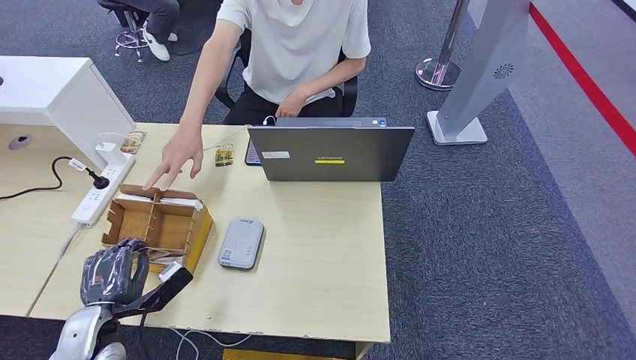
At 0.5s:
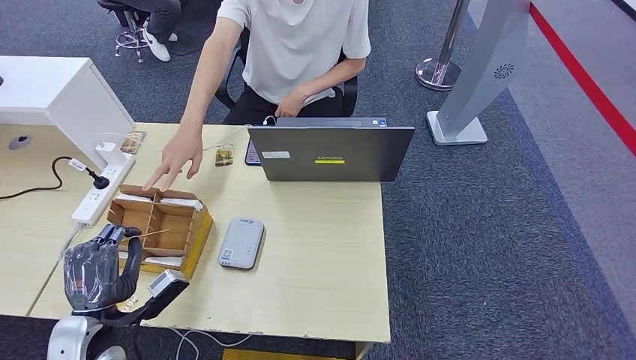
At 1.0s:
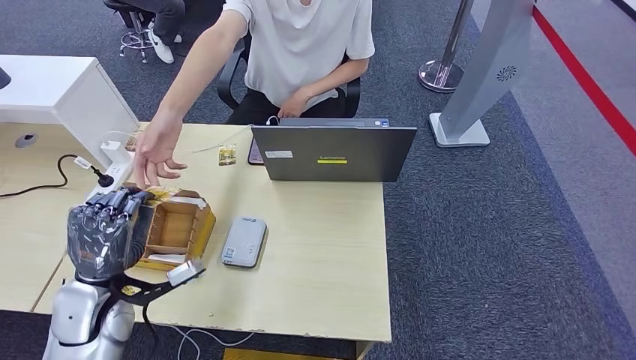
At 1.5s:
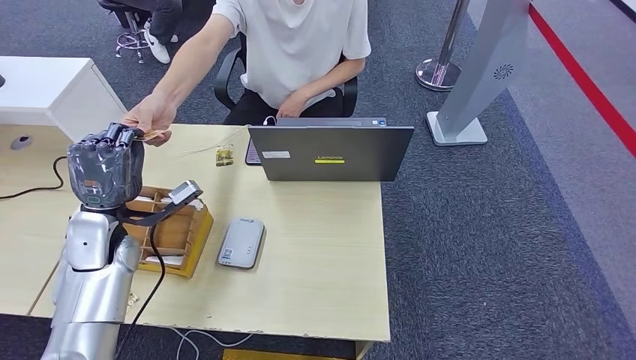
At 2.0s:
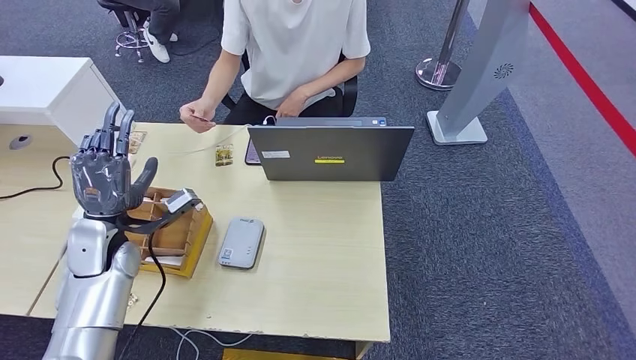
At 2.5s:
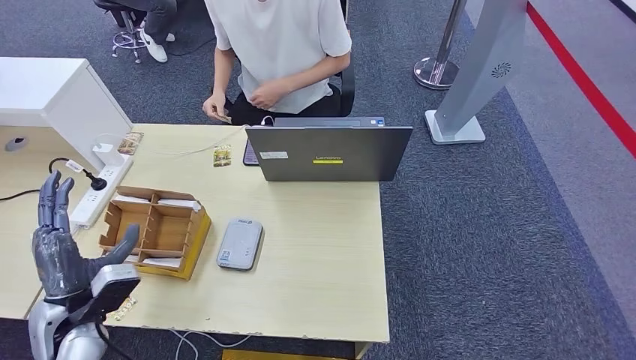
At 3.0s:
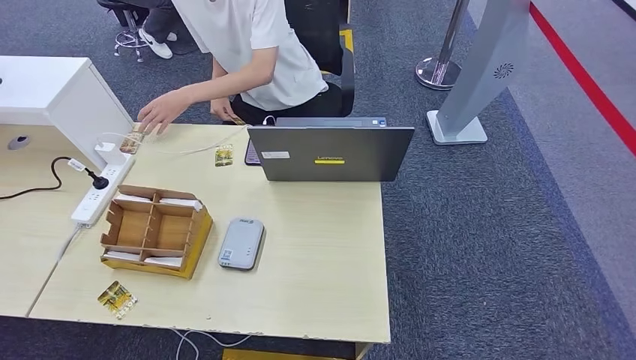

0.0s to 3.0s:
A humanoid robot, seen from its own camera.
Step, 0.5s to 3.0s: Hand the room key to the person.
0.0s to 1.5s: The left hand moves forward and upward, roughly 20 cm.
1.5s to 3.0s: The left hand heads backward, downward and to the left, covering approximately 35 cm.

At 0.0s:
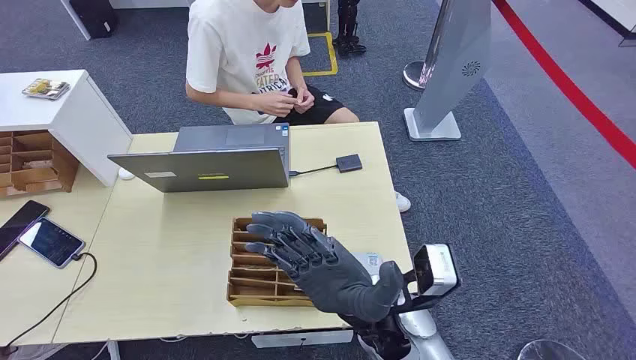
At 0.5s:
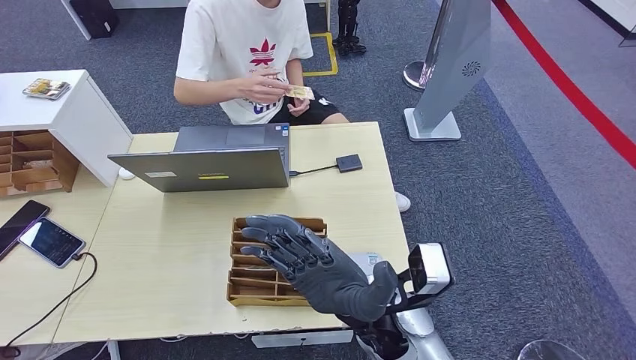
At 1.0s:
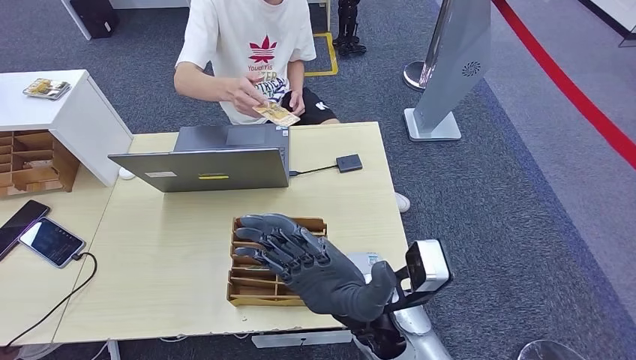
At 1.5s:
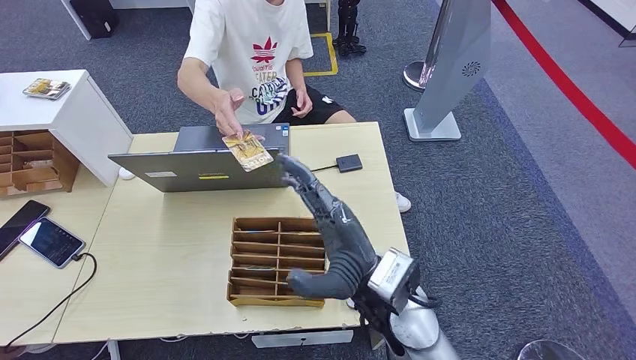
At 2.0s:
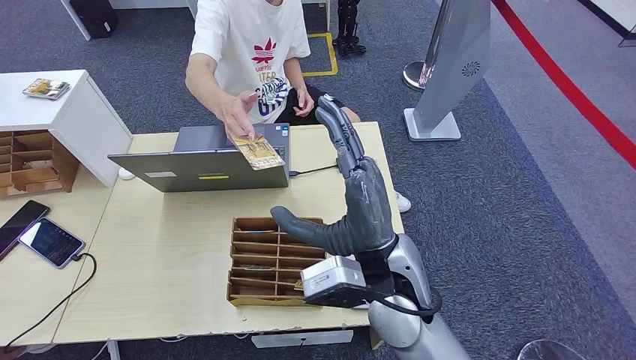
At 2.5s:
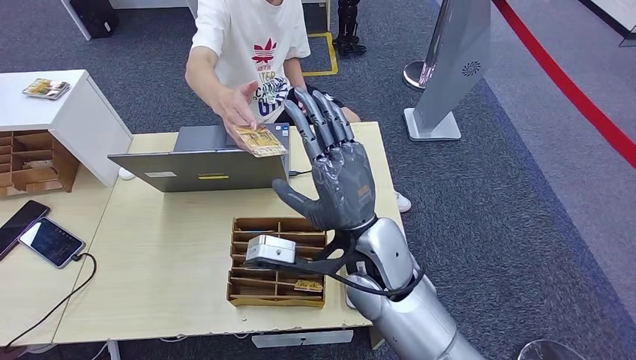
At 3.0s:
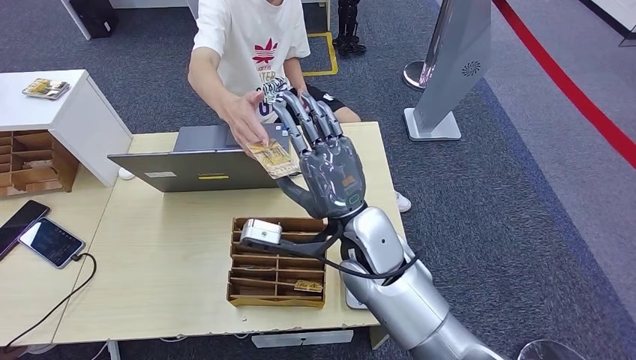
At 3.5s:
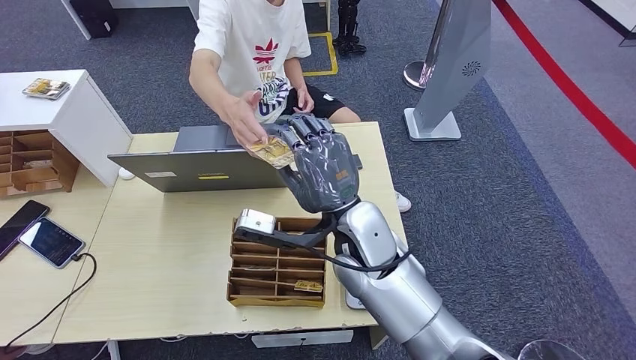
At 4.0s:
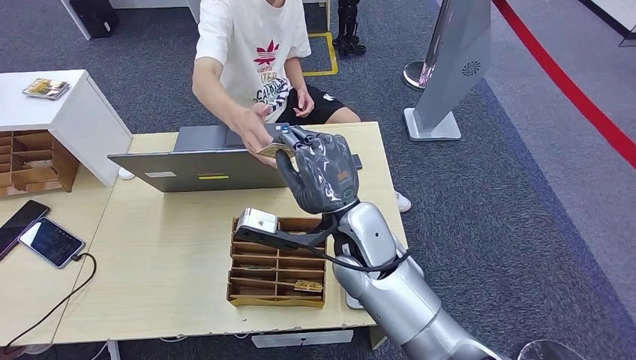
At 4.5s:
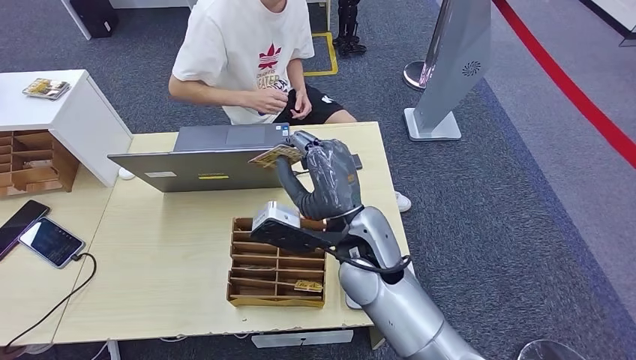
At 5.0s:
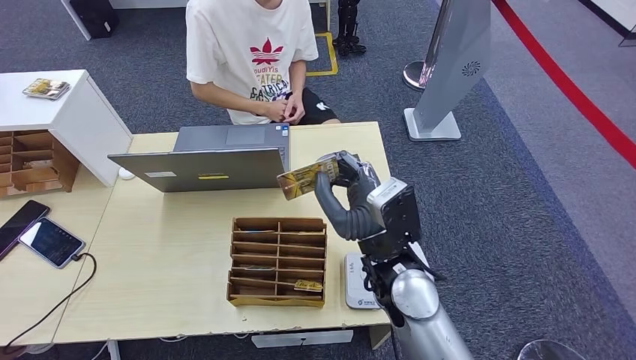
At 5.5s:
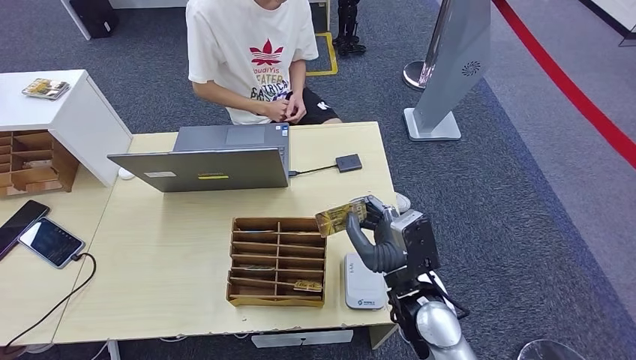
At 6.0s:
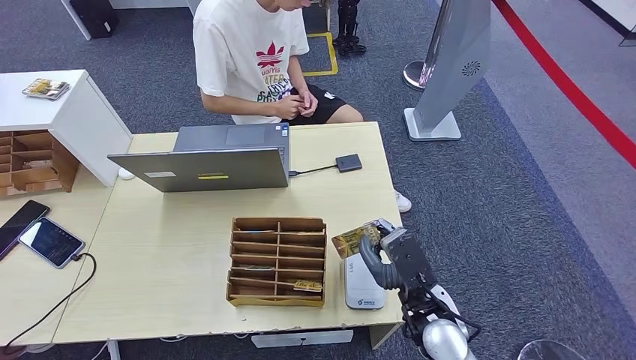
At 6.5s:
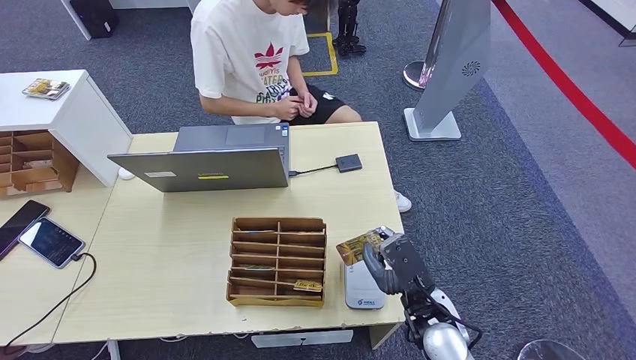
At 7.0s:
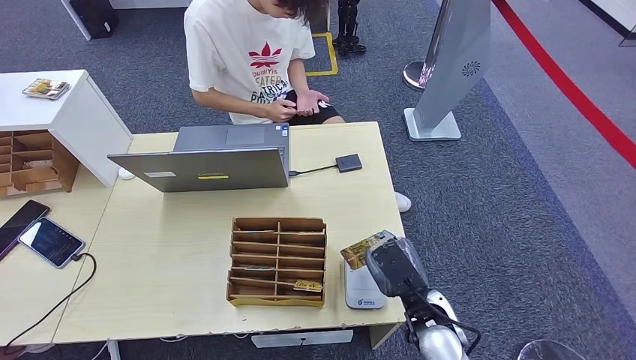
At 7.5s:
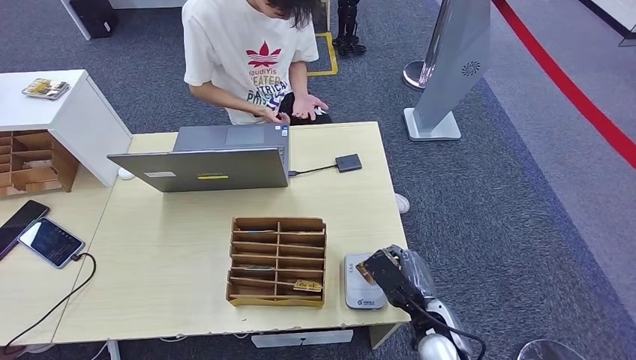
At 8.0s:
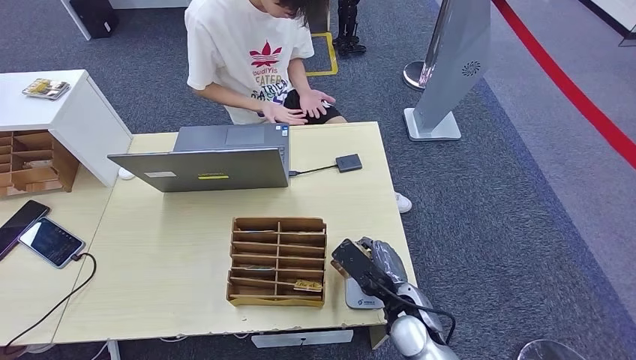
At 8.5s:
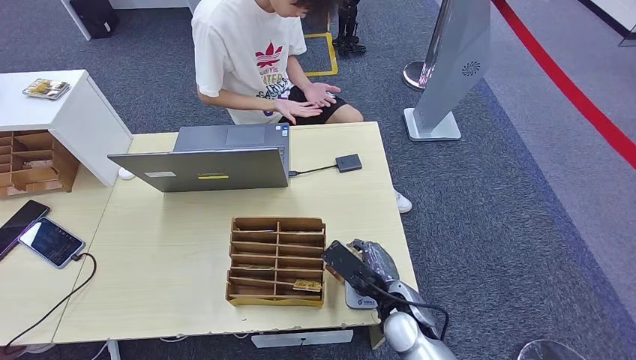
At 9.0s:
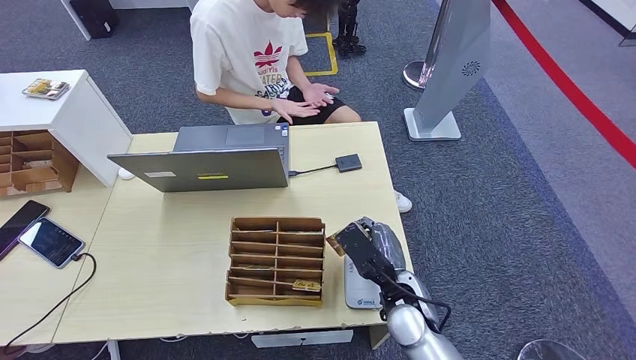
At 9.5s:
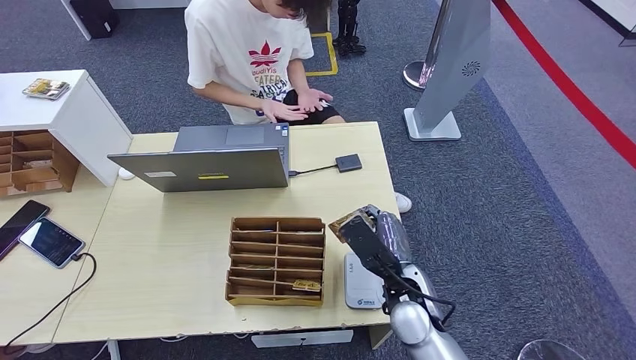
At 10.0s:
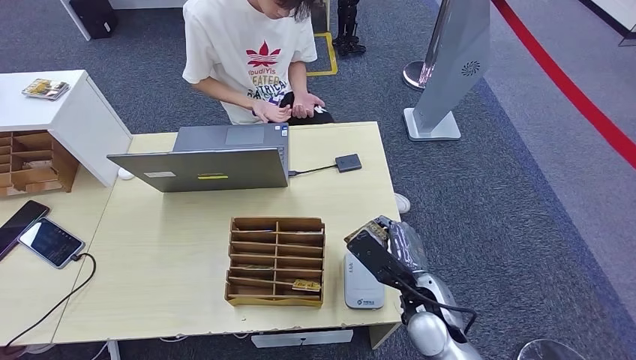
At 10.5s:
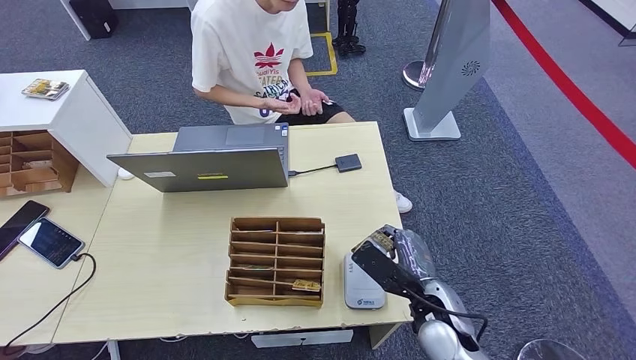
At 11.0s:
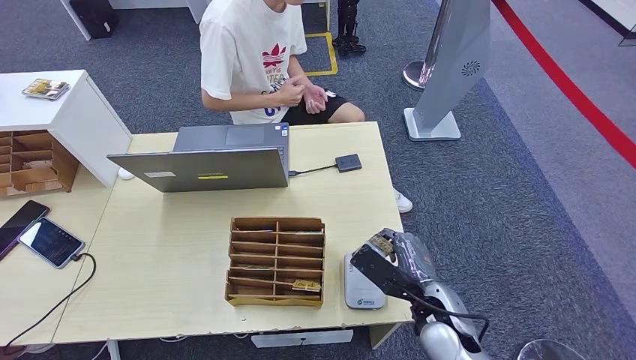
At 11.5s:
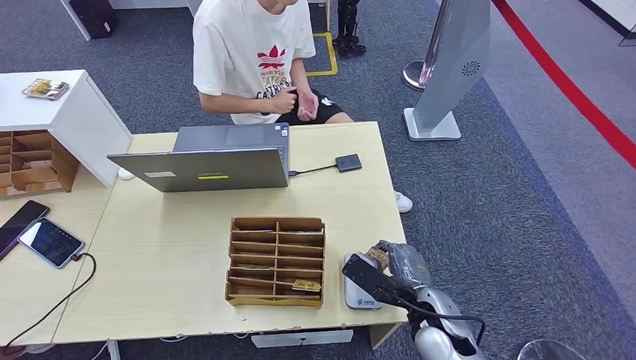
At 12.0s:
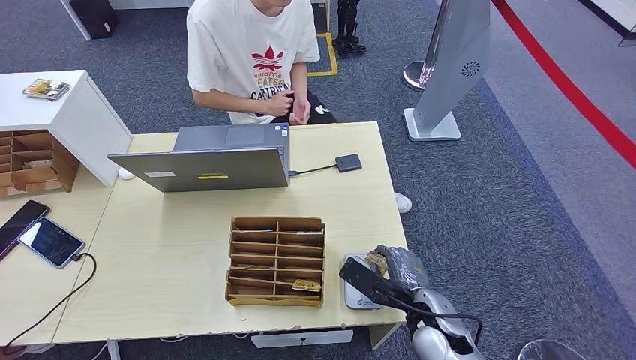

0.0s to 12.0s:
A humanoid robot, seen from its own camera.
Step, 0.0s to 4.5s: Take the ID card from the person's hand.
Step, 5.0s to 8.0s: Place the ID card on the card reader.
2.0s to 4.0s: The right hand shifts approximately 5 cm forward.
4.0s to 6.0s: The right hand goes roughly 20 cm to the right, downward and backward.
8.0s to 10.0s: There are only small adjustments of the hands.

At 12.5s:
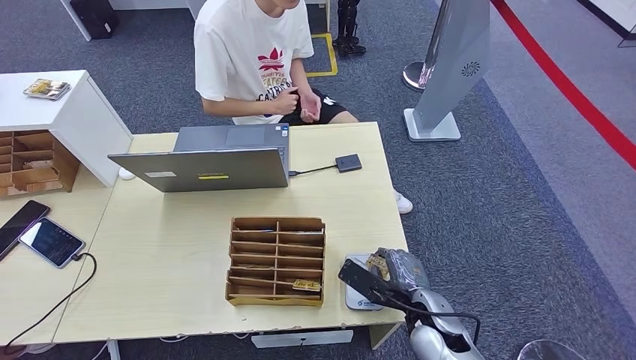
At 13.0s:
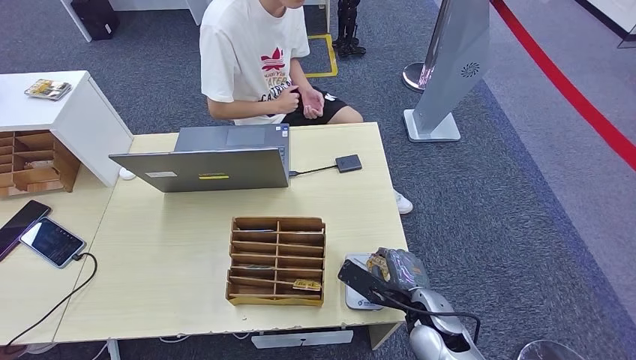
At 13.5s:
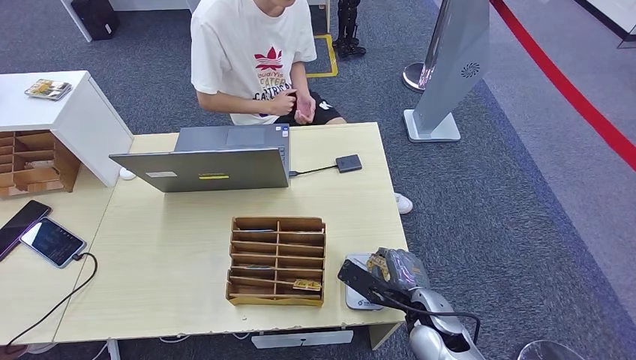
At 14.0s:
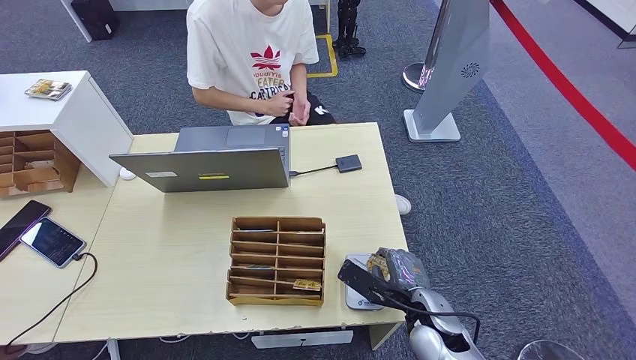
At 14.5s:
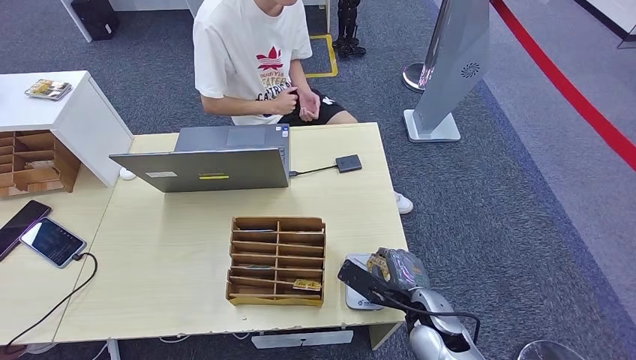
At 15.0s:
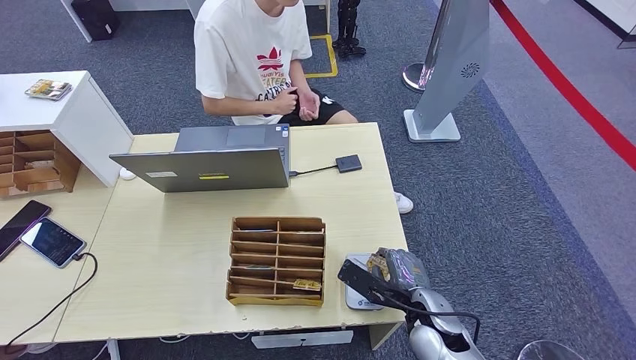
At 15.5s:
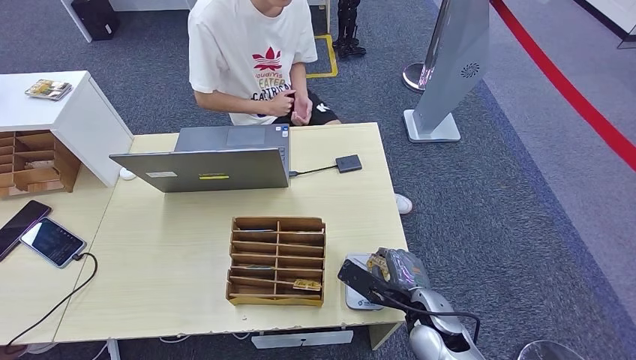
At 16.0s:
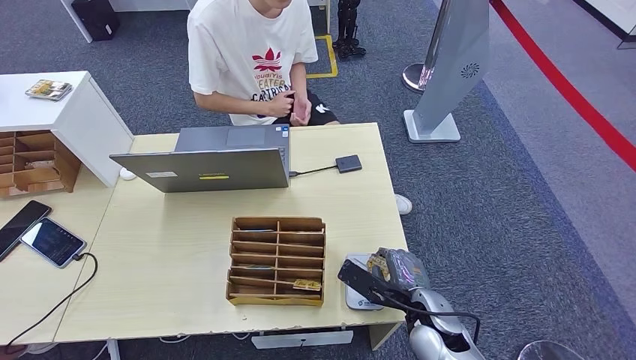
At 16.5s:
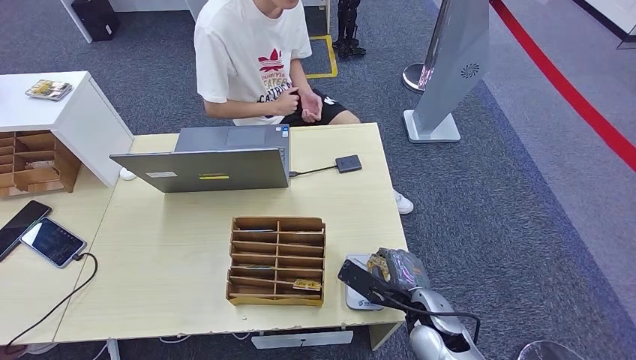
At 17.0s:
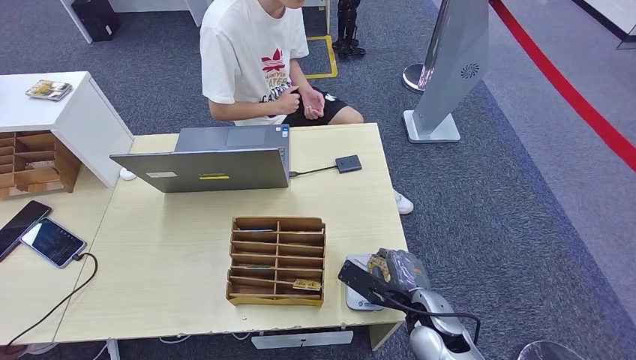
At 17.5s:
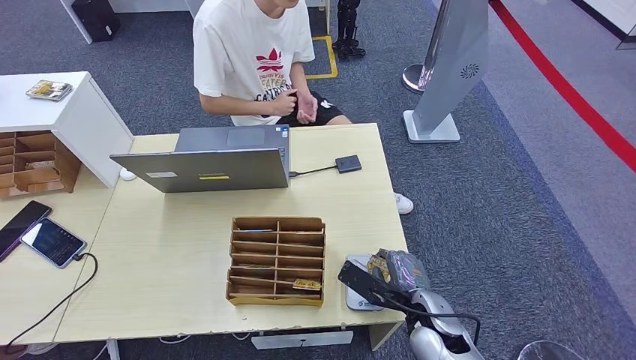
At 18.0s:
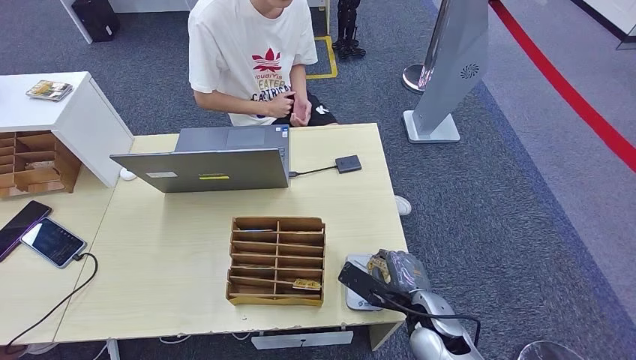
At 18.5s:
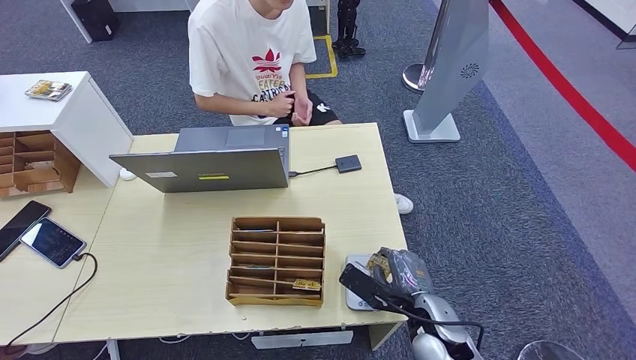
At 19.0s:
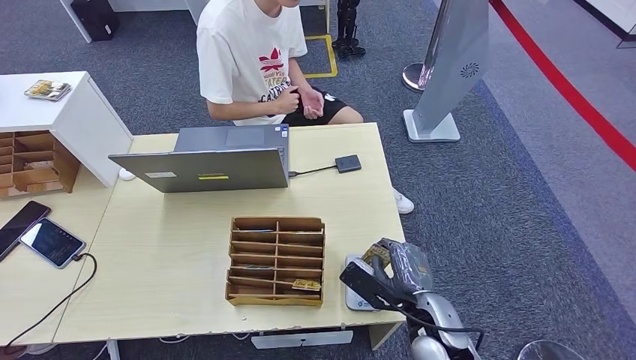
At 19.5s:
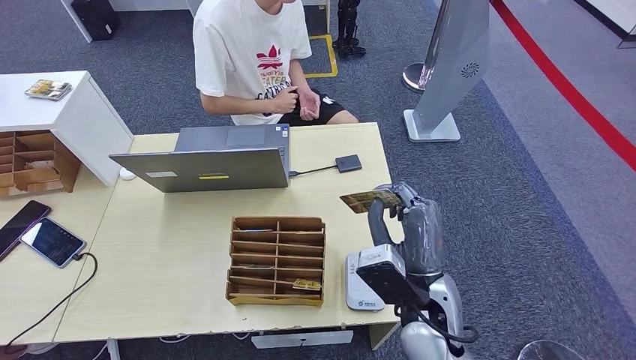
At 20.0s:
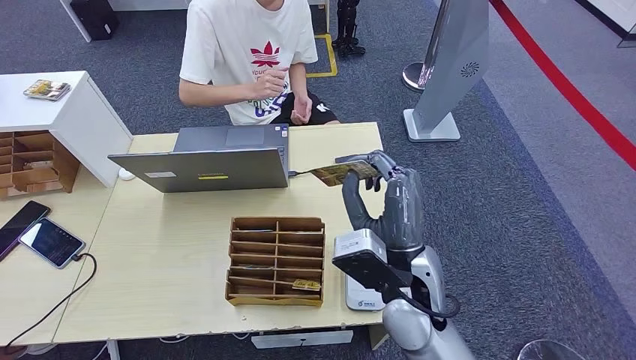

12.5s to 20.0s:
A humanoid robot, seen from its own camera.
12.5s to 18.0s: Neither hand changes place.
18.0s to 20.0s: The right hand shifts approximately 20 cm upward and to the left.
